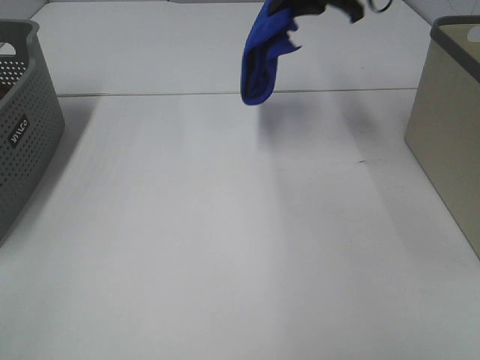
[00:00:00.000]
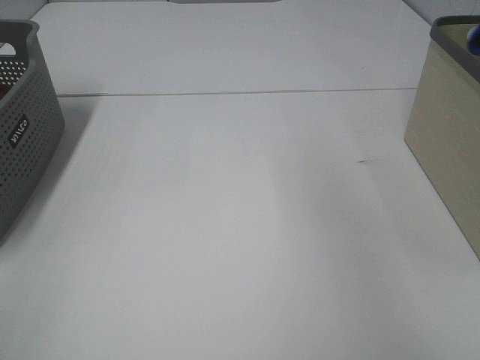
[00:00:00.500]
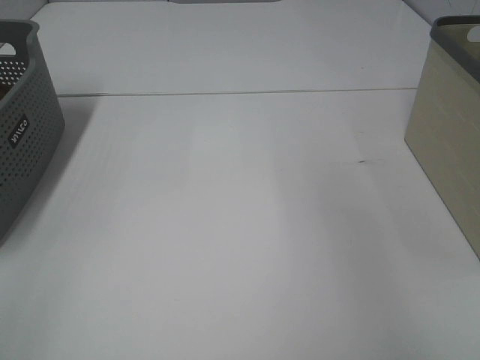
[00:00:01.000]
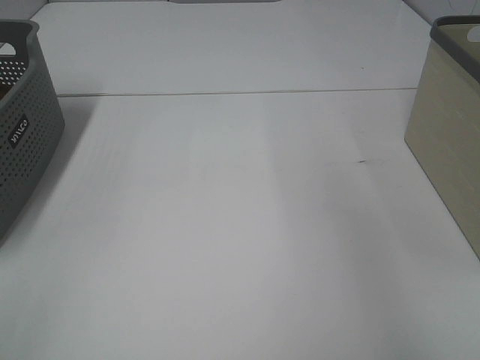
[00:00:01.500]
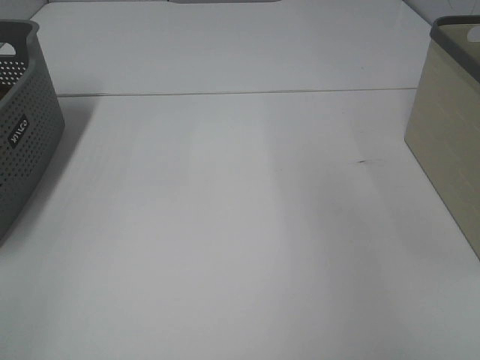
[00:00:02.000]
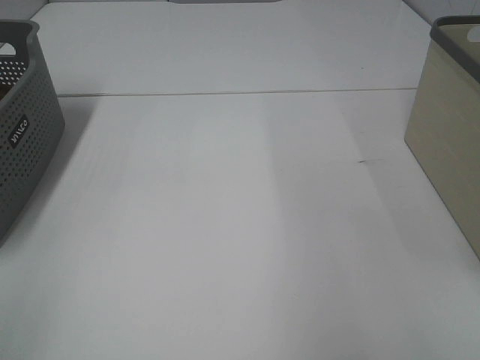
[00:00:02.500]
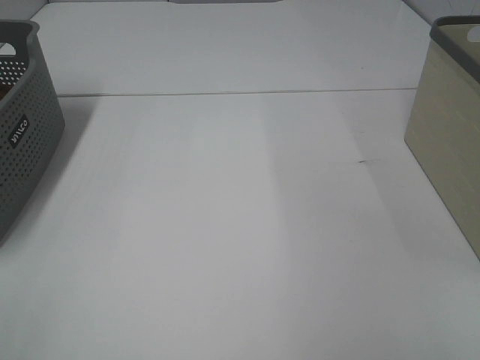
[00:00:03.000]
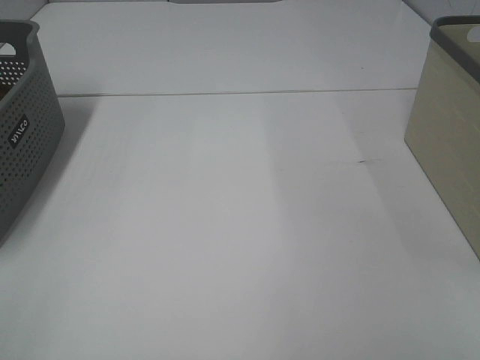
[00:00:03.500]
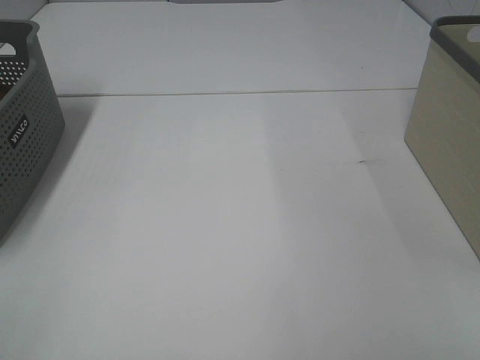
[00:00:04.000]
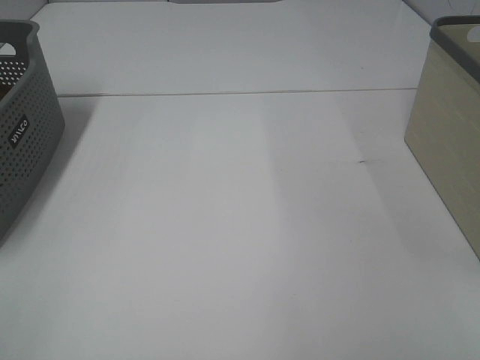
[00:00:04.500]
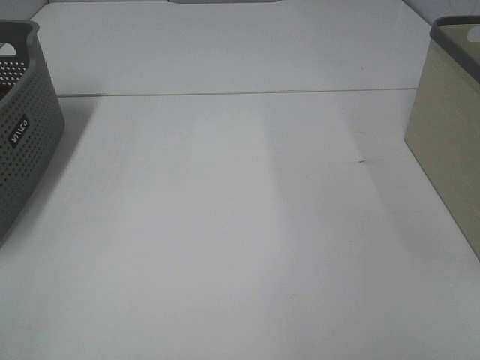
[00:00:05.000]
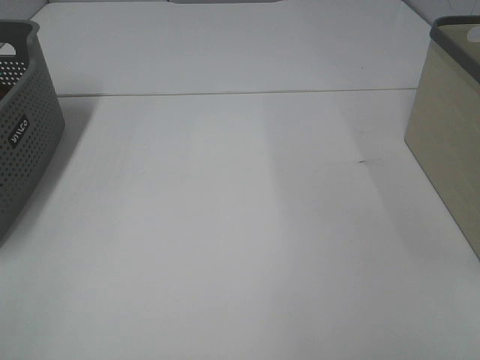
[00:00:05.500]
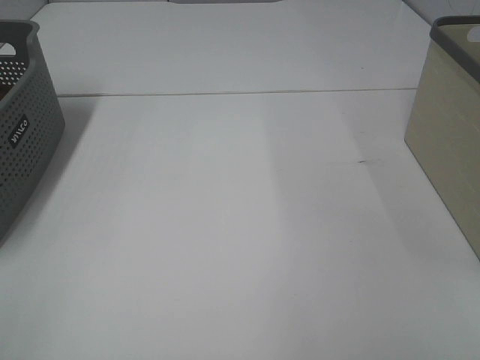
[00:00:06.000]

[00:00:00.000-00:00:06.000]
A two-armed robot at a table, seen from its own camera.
Step, 00:00:00.000 to 00:00:01.500: Right hand: place the blue towel in right basket.
00:00:00.000 to 00:00:02.000: The right gripper heads to the right and backward, covering some 25 cm, and opens.

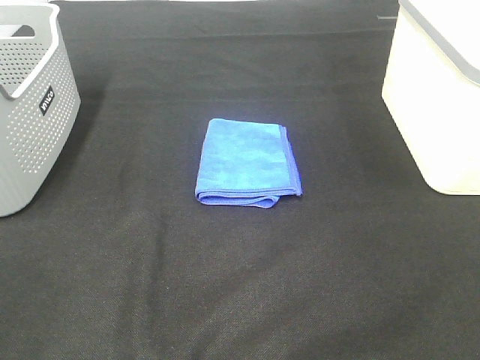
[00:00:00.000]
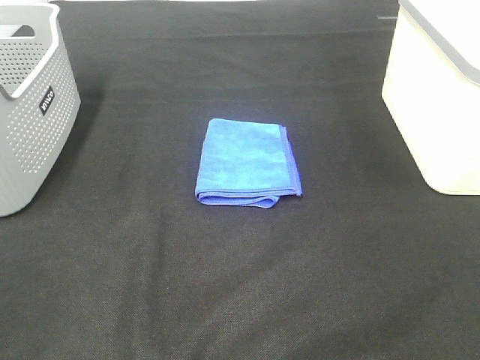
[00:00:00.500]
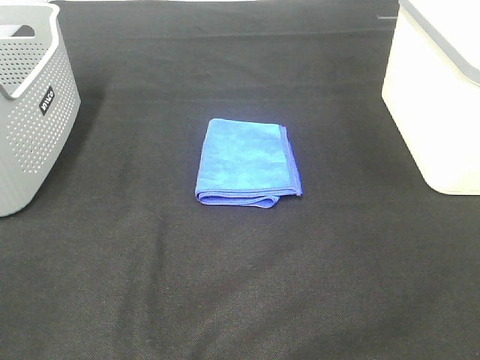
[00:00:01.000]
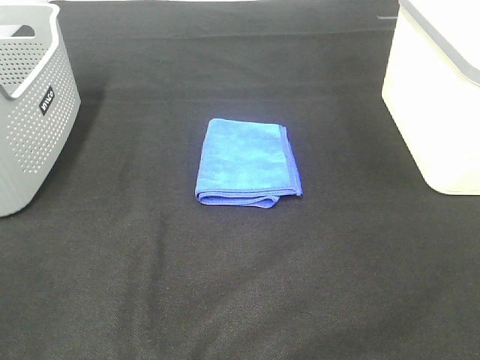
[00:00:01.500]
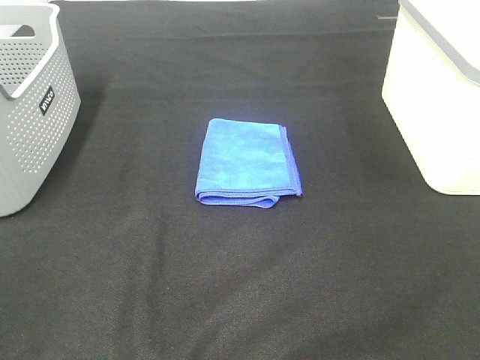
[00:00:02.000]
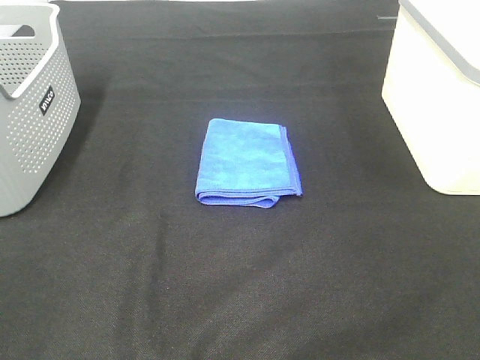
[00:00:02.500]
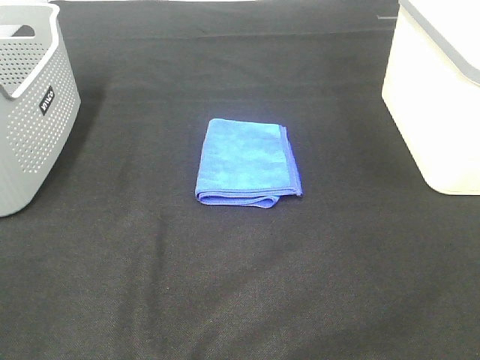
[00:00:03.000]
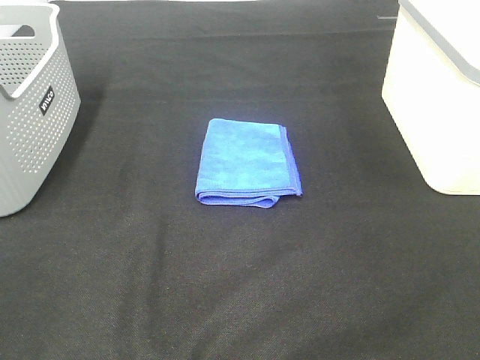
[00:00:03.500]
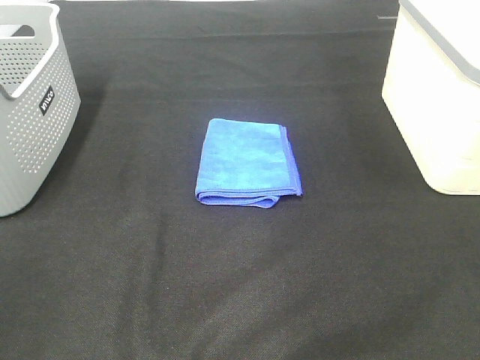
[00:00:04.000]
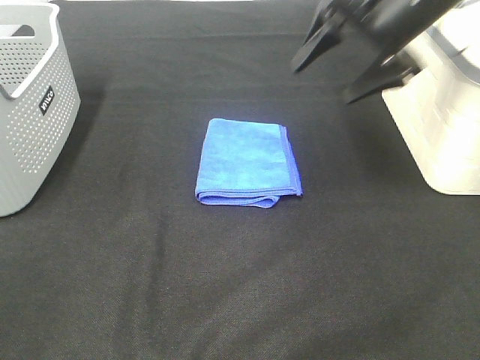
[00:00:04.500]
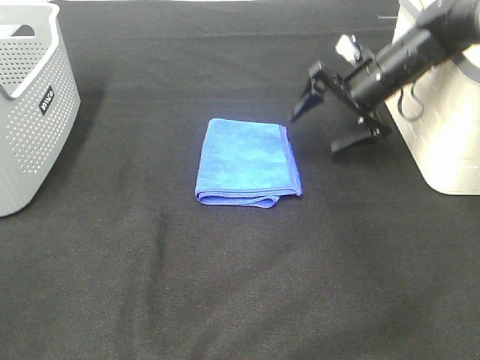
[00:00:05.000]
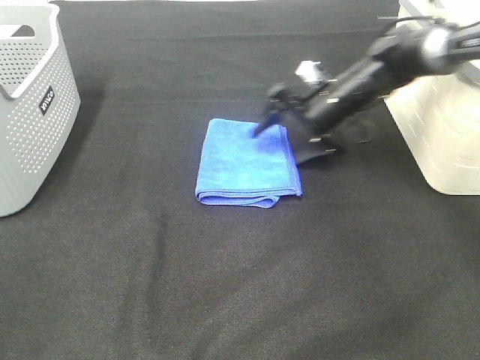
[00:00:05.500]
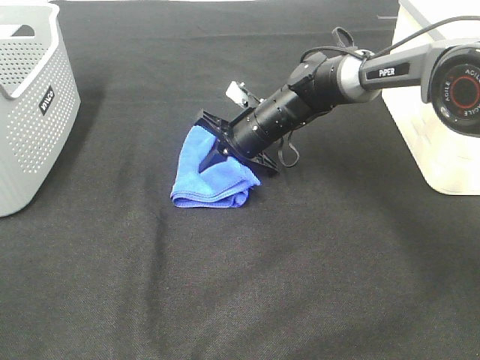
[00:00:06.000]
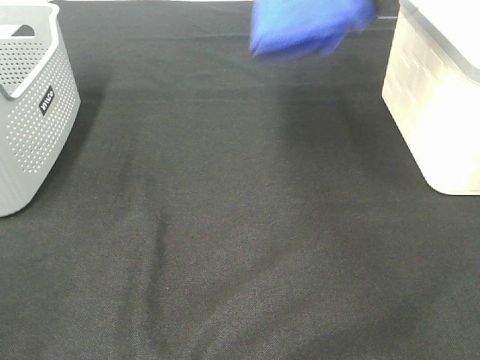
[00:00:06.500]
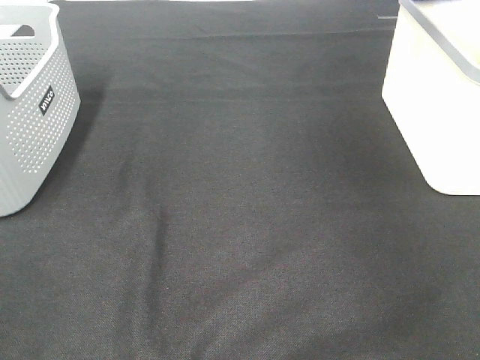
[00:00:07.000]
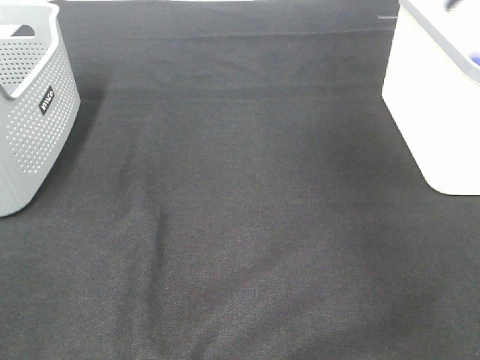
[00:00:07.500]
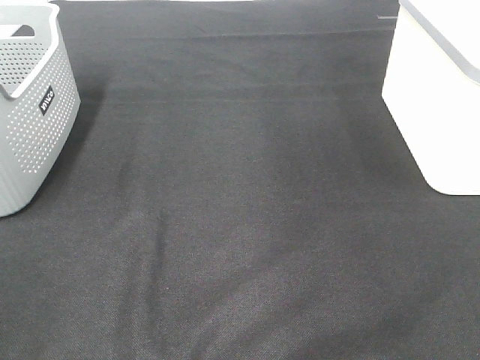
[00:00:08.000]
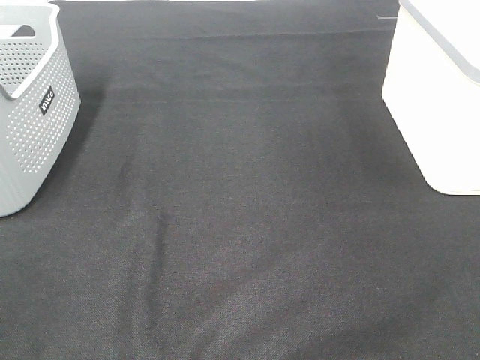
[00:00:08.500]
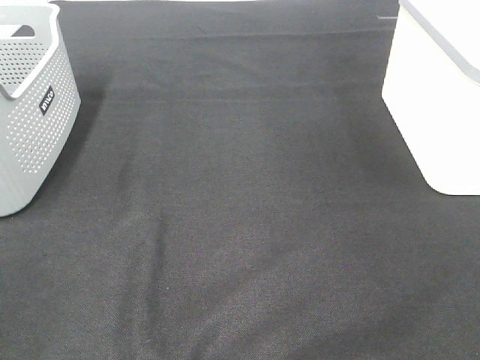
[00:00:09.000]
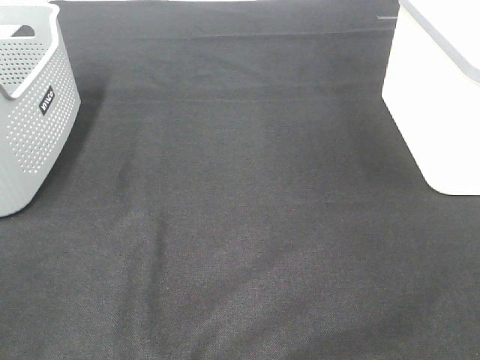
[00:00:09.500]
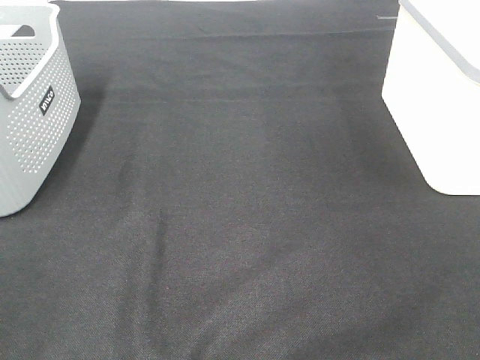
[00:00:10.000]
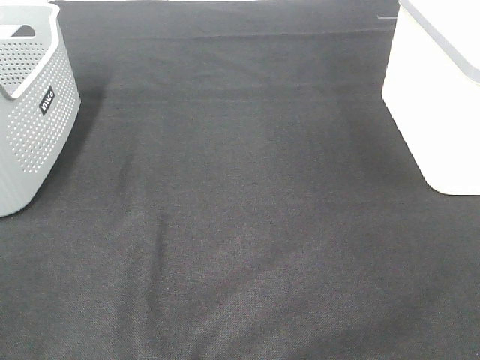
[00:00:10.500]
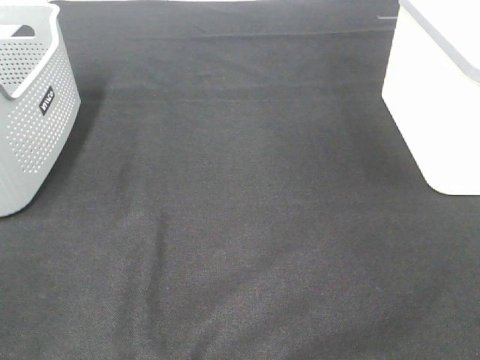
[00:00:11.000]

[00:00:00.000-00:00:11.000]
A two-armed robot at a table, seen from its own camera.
Step, 00:00:00.000 to 00:00:06.000: Right hand: grab the folded blue towel.
Step, 00:00:06.500 to 00:00:07.000: Right hand: place the blue towel in right basket.
00:00:00.000 to 00:00:02.000: Both grippers stay about where they are.
00:00:03.500 to 00:00:05.500: The right gripper heads forward and downward, covering about 50 cm.
00:00:05.500 to 00:00:07.500: The right gripper shifts roughly 30 cm upward and to the right, and closes, then reopens.
00:00:09.000 to 00:00:11.000: Neither gripper changes place.

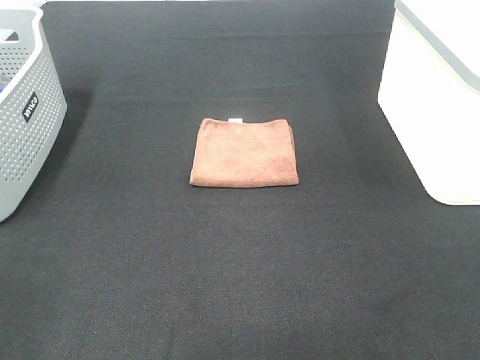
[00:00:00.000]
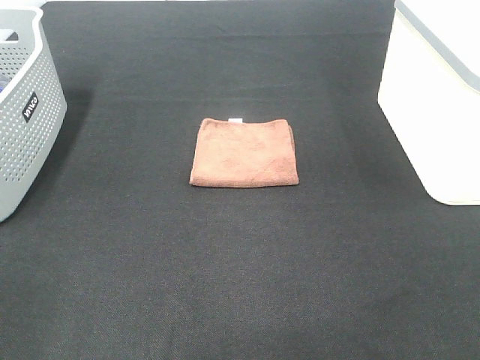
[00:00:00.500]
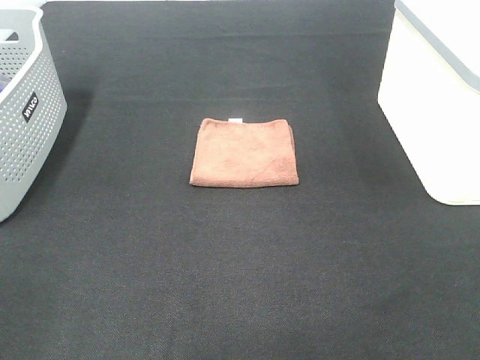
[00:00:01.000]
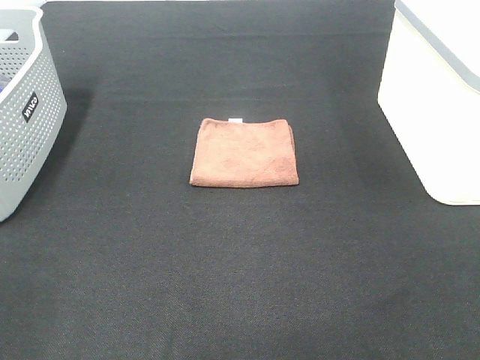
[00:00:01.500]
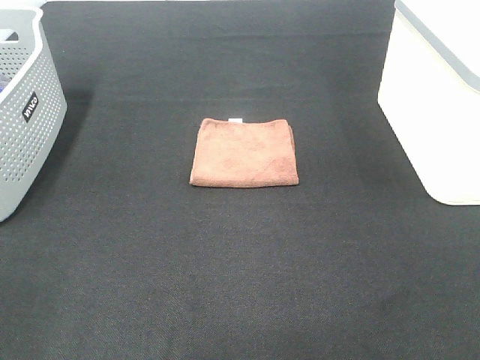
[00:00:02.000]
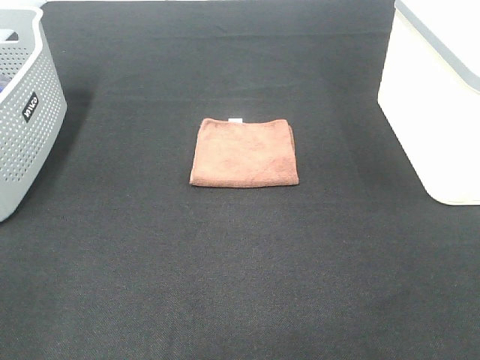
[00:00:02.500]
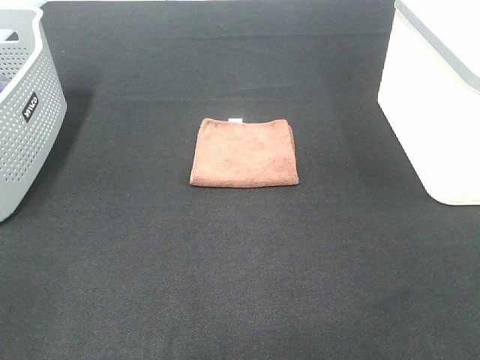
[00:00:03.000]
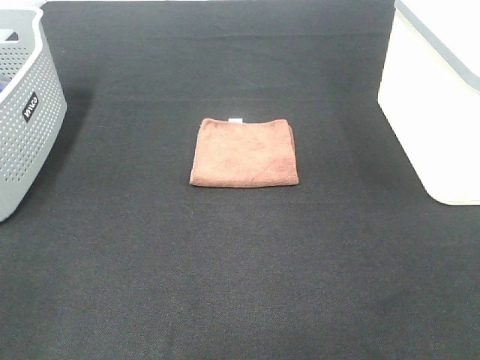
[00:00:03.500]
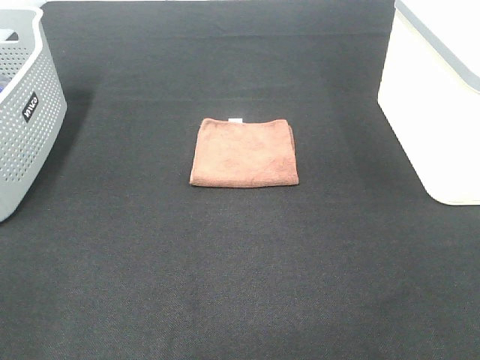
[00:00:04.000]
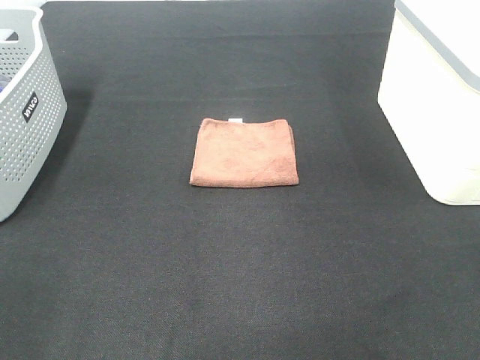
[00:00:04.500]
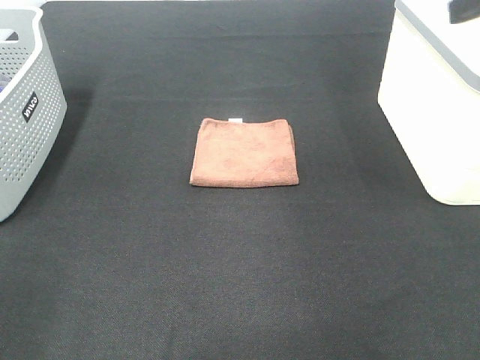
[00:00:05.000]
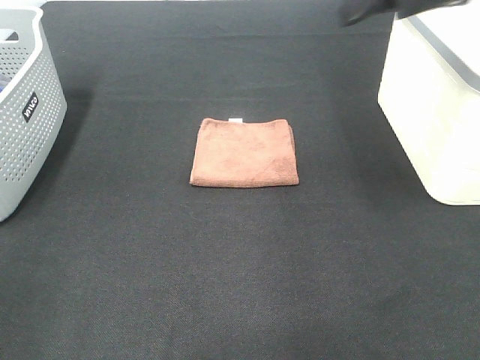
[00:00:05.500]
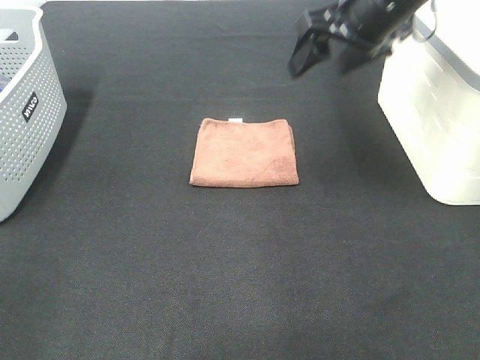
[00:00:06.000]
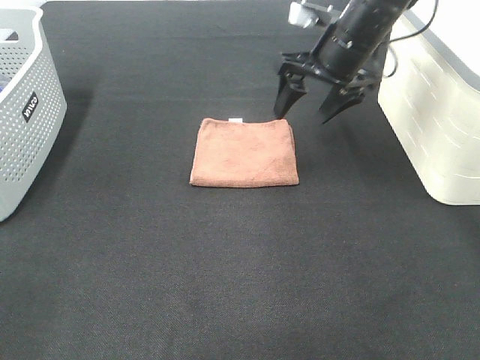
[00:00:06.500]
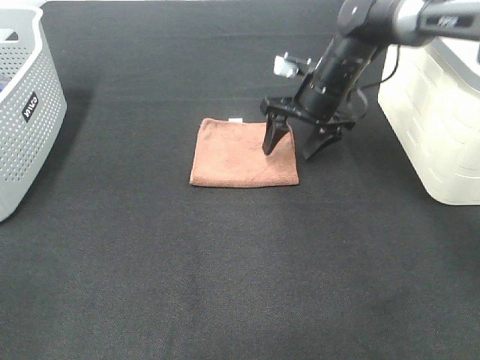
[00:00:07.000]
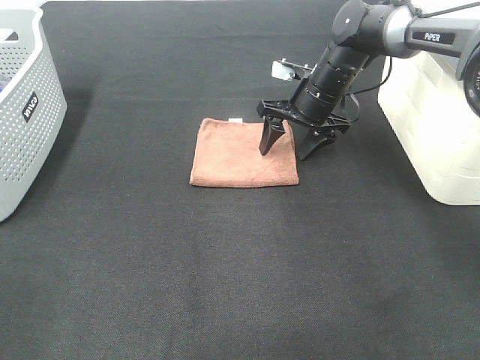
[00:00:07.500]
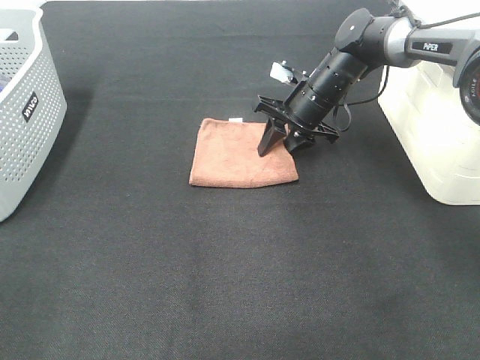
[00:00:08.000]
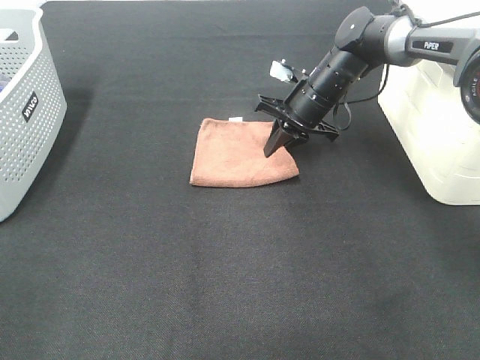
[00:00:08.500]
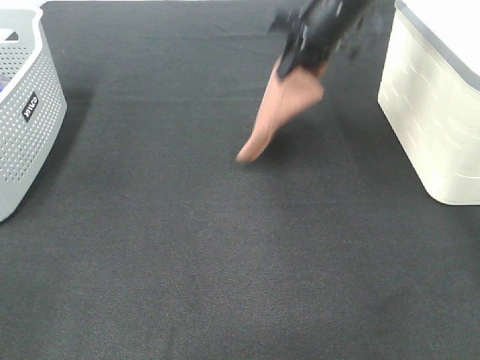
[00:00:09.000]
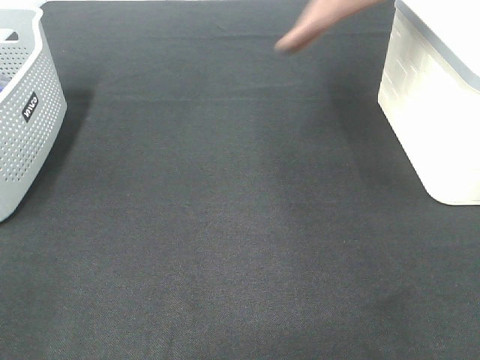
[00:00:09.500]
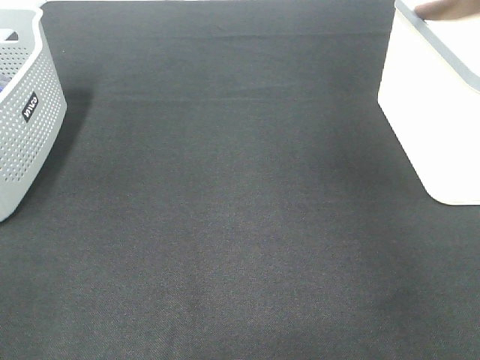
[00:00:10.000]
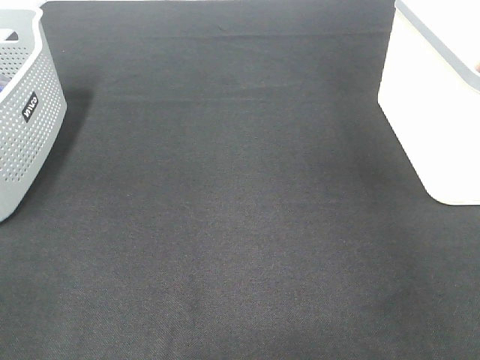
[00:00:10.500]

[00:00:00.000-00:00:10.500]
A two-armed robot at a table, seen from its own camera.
Step, 00:00:00.000 to 00:00:08.000: Right hand: grab the folded brown towel.
00:00:00.000 to 00:00:02.000: Both grippers stay about where they are.
00:00:04.000 to 00:00:06.500: The right gripper is displaced forward by approximately 40 cm.
00:00:06.500 to 00:00:08.500: The right gripper travels downward by roughly 10 cm, and closes up.
00:00:08.500 to 00:00:10.500: The right gripper moves to the right and upward, some 35 cm, and opens up.
